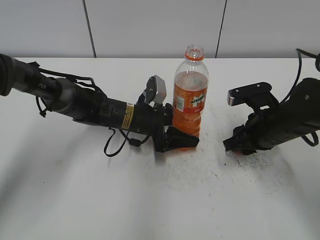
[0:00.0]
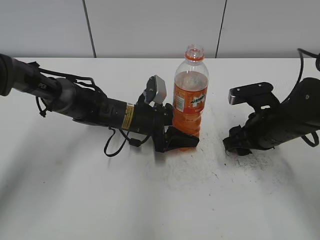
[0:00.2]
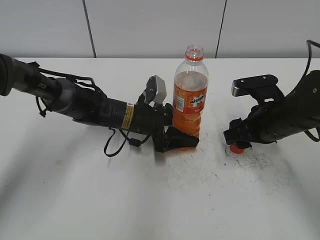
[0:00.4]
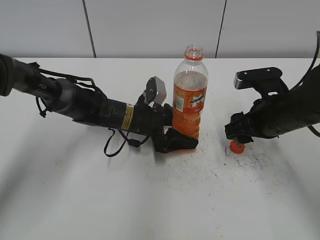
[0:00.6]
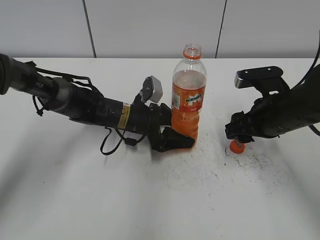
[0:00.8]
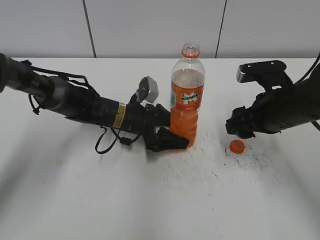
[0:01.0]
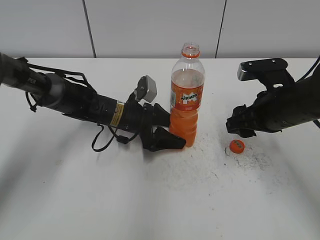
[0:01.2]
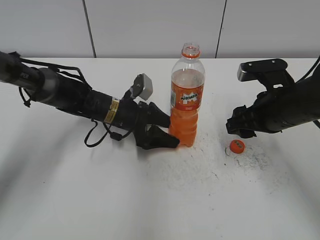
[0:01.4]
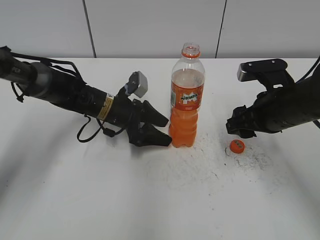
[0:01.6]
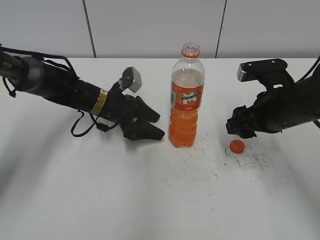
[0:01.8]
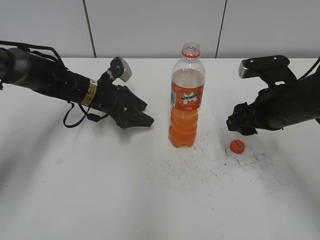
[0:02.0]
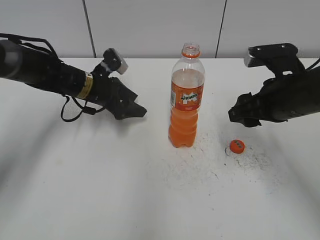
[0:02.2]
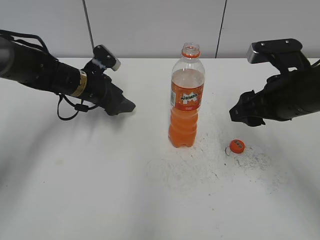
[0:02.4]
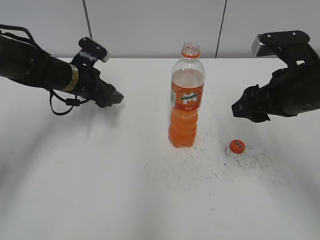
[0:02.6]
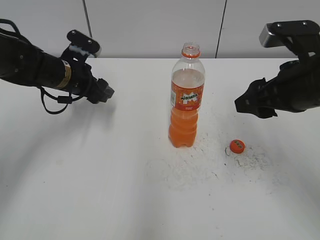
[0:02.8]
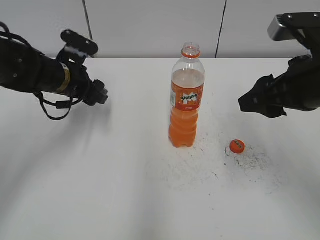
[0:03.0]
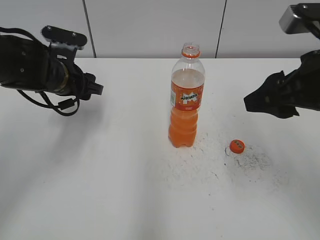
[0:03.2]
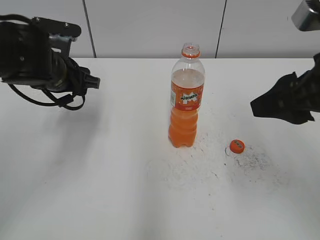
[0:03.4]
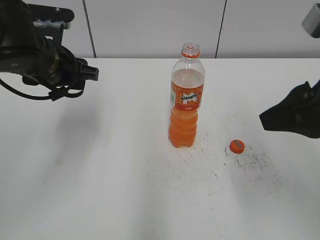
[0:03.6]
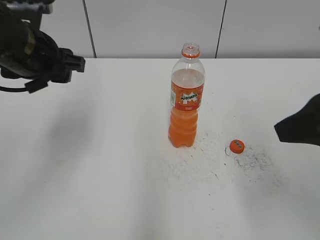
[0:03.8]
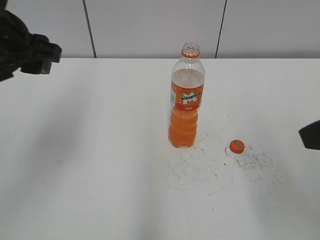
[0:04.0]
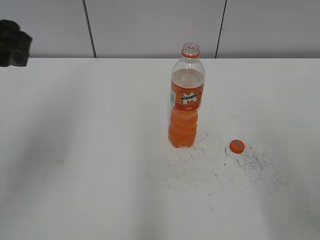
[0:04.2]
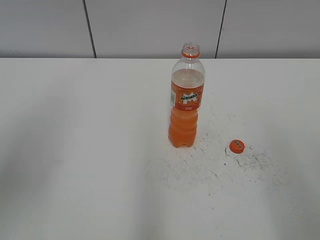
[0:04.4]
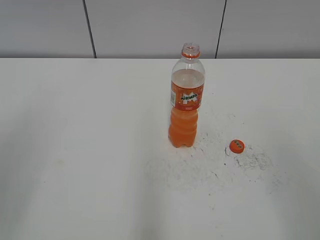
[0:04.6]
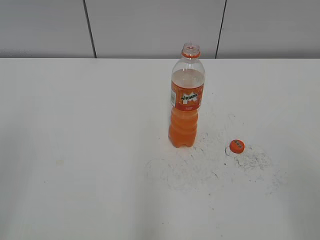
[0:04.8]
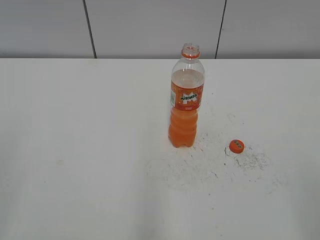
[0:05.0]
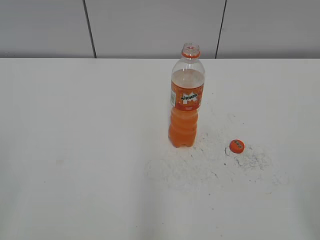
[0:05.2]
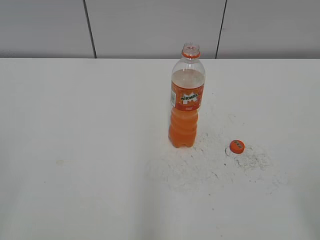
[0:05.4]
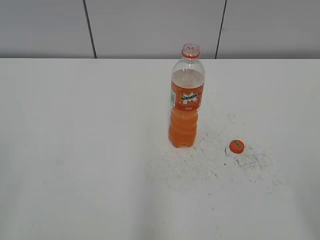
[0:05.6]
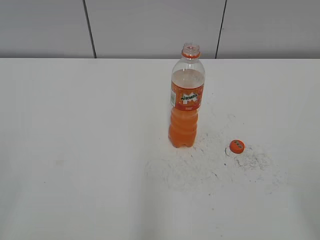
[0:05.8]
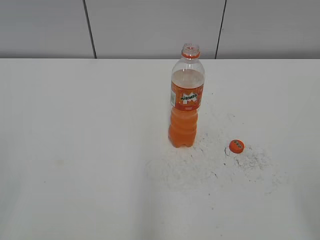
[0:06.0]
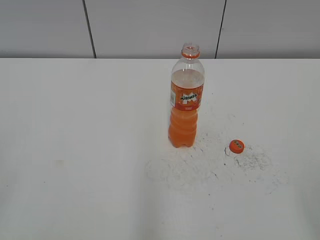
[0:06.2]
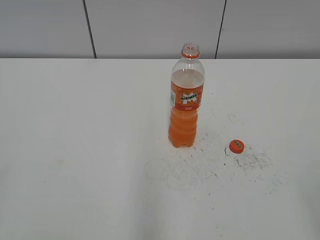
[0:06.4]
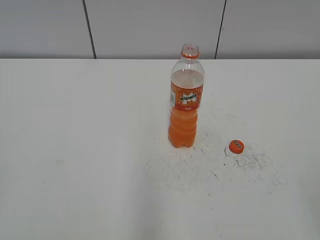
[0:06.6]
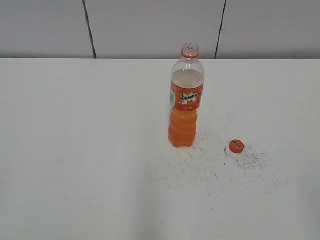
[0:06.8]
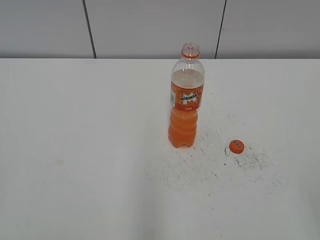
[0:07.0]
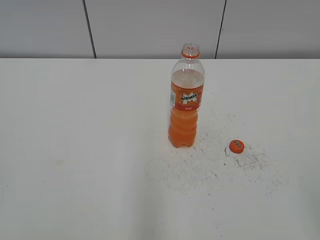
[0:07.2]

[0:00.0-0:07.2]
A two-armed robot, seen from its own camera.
Step, 0:00.0 to 0:01.8: Place the bottle cap on the table with the right hand.
0:00.0 to 0:01.4: The left gripper opens its fingers; the right gripper heads upward, covering some 5 cm, and opens up.
0:01.4 to 0:02.8: The left gripper shifts about 15 cm to the left and upward, and closes its fingers, while the right gripper moves upward, approximately 5 cm.
0:02.8 to 0:04.4: The left gripper travels backward and upward by roughly 30 cm. The right gripper shifts approximately 20 cm backward and upward.
0:04.4 to 0:05.8: The left gripper travels backward and to the left by about 20 cm.

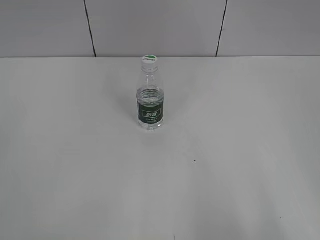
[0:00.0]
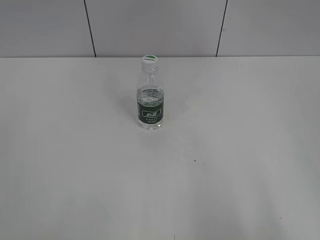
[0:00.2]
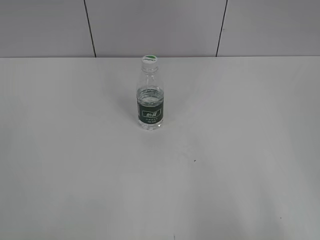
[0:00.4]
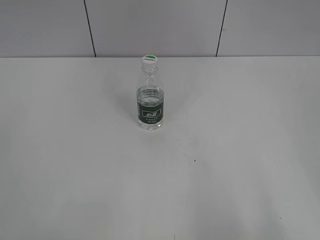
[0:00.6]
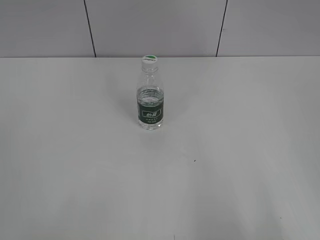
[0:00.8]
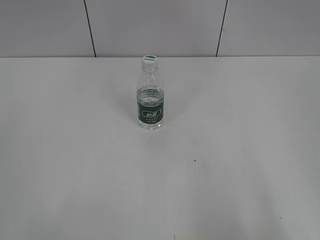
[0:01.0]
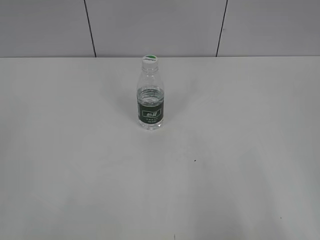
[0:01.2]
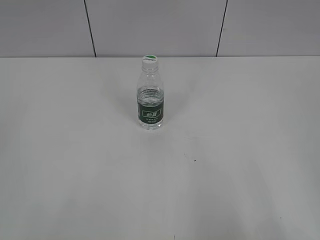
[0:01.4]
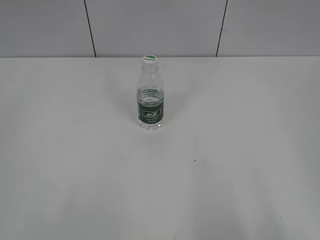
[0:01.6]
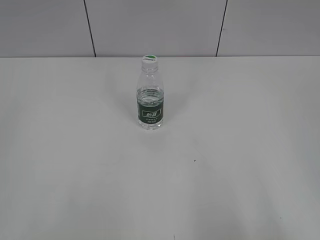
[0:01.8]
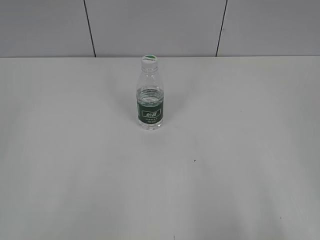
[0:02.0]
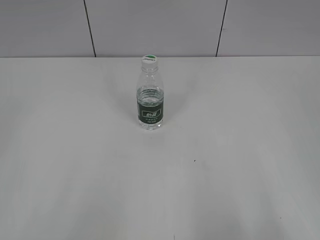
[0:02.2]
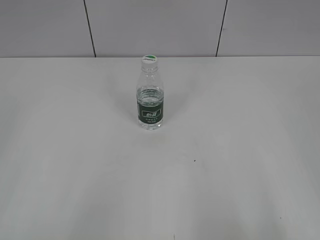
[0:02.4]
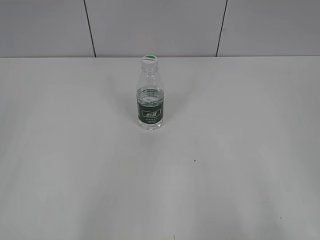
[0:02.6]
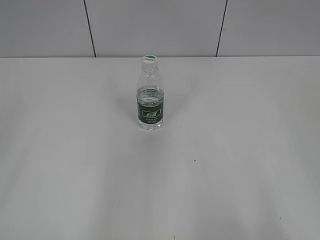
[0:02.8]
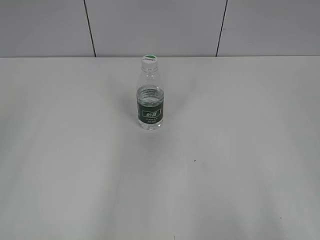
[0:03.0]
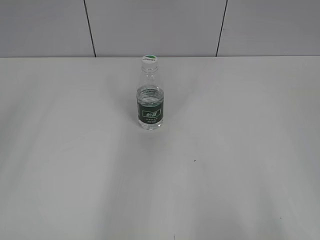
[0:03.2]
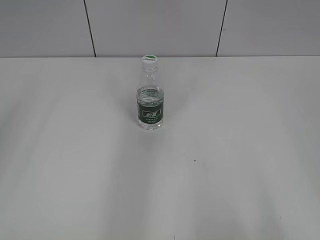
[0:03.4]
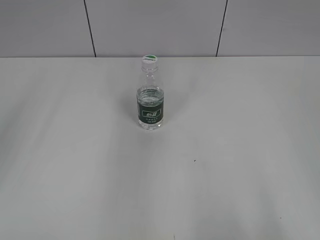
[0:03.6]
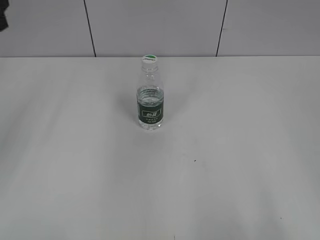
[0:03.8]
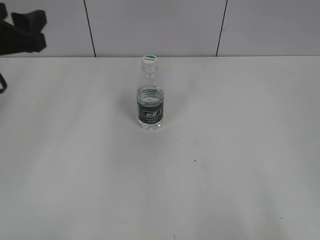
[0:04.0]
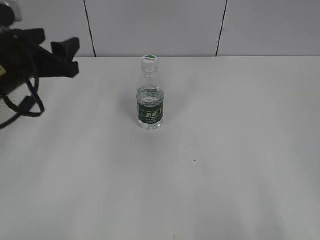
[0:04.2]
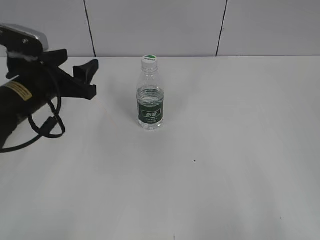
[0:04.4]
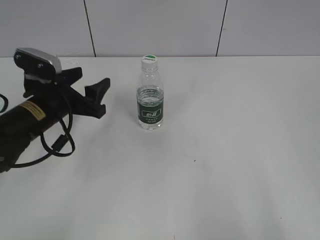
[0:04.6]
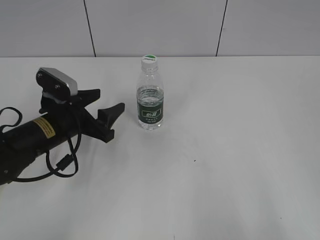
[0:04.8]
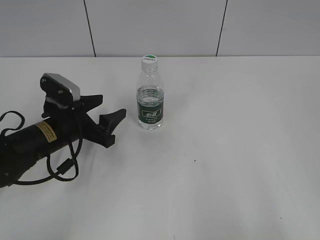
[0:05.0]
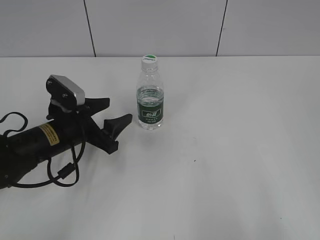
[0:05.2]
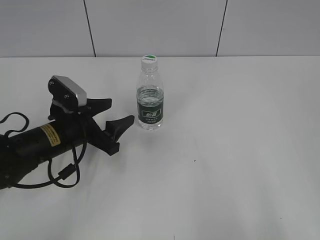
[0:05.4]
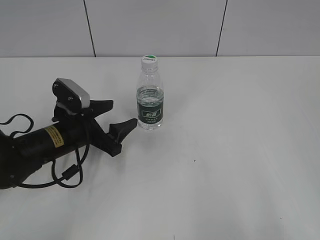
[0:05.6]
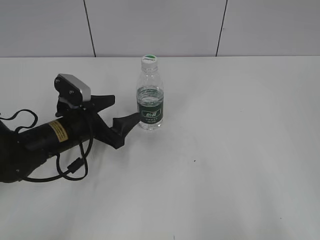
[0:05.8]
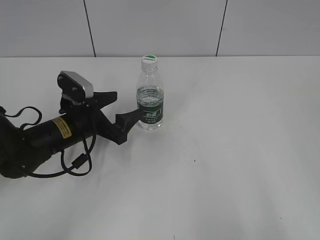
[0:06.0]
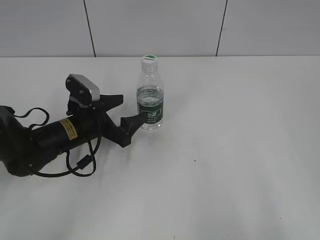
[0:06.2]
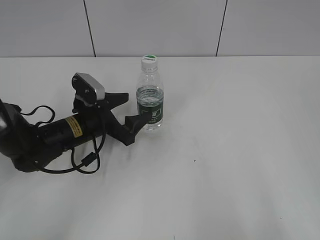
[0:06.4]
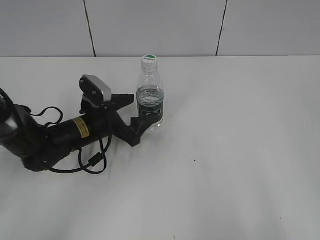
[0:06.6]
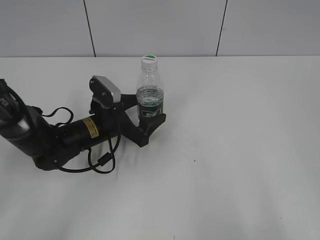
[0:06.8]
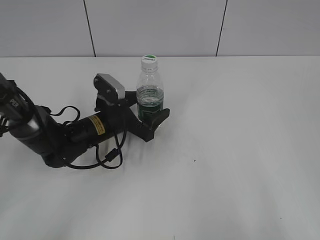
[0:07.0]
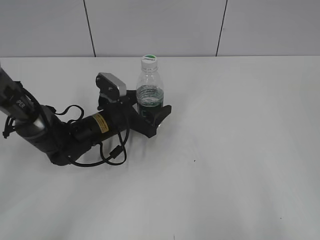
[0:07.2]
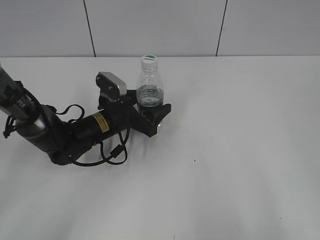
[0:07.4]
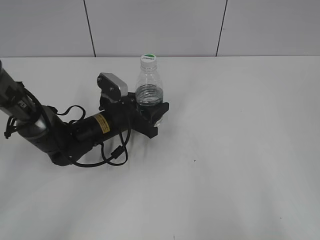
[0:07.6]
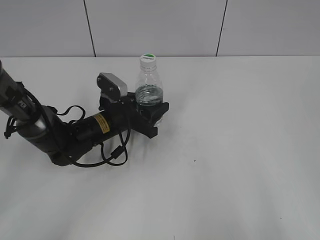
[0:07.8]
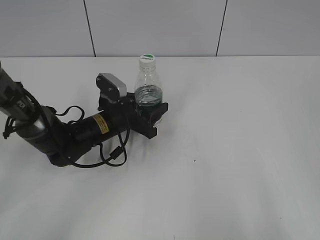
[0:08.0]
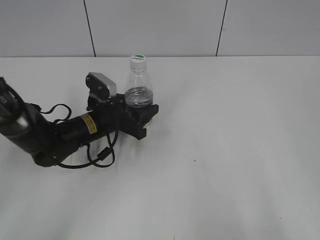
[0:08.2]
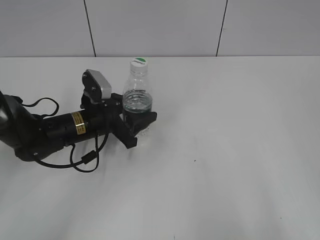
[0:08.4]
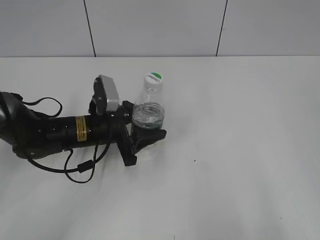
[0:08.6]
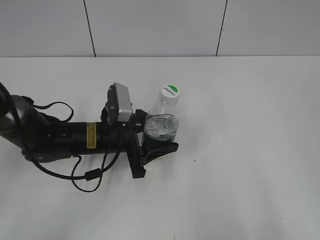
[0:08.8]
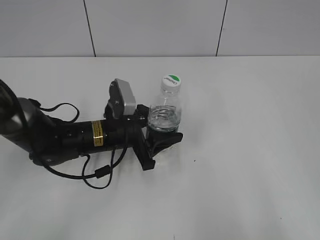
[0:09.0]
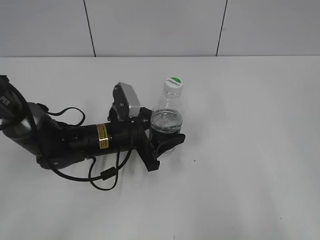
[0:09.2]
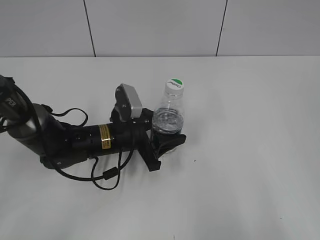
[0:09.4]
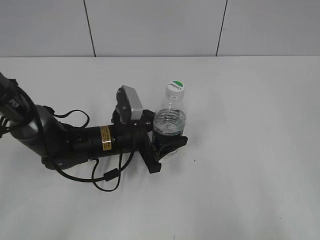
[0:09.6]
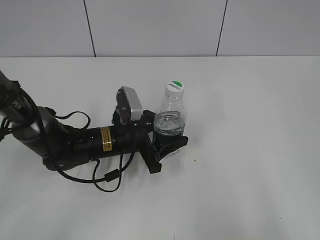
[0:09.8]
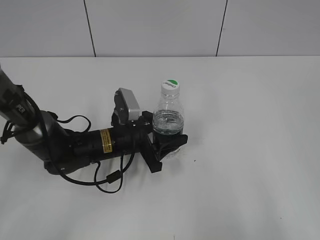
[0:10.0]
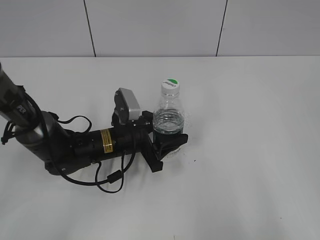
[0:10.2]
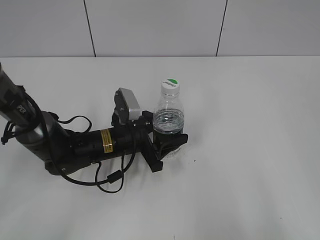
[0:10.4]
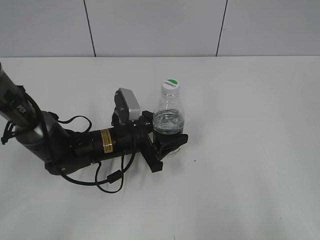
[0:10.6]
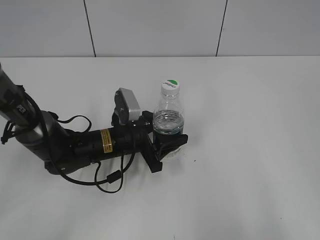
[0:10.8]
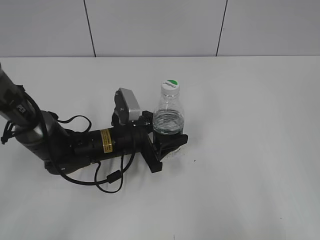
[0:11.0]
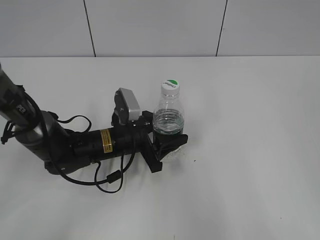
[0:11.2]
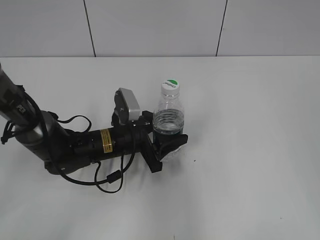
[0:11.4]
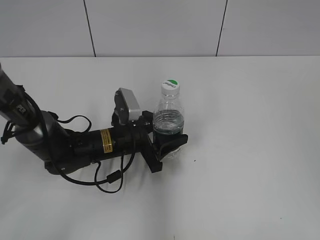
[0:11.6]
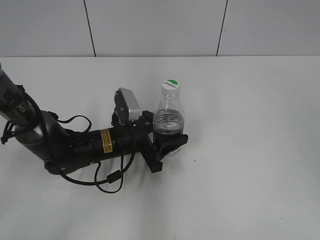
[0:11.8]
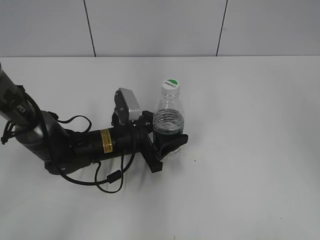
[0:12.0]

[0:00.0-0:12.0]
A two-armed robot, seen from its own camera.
Step, 0:00.0 to 0:07.8: Grasp the bottle and move it to the center of the table with the left gripper.
Step, 0:08.0 to 0:11.6: Lift the bottle and move it to the center of the table with the left gripper.
0:01.6 to 0:03.0: The left gripper heads forward and upward, covering about 10 cm, and opens its fingers.
0:03.0 to 0:04.4: The left gripper heads forward, downward and to the right, covering approximately 30 cm.
0:04.4 to 0:06.0: The left gripper heads downward, covering roughly 10 cm.
0:06.0 to 0:07.6: The left gripper is displaced to the right by approximately 5 cm, and closes up.
0:07.6 to 0:09.0: The left gripper moves backward, about 5 cm.
0:09.0 to 0:10.4: The grippers move only a little.
0:10.4 to 0:12.0: The right gripper is displaced forward and upward by approximately 25 cm.

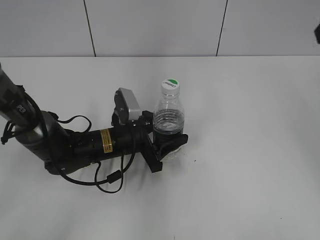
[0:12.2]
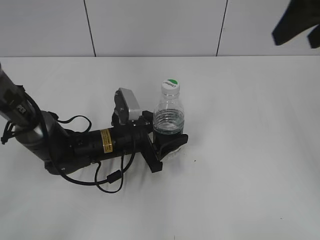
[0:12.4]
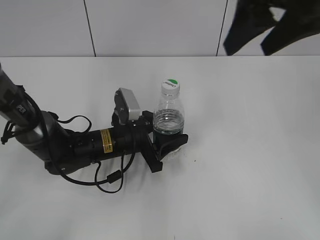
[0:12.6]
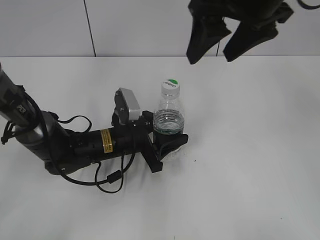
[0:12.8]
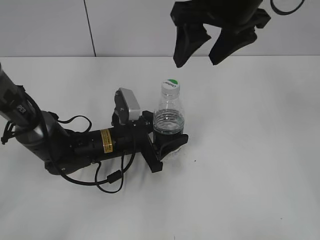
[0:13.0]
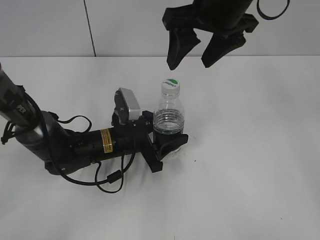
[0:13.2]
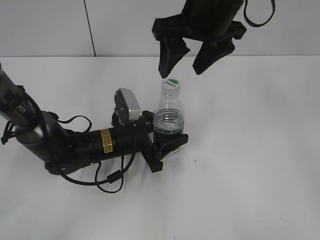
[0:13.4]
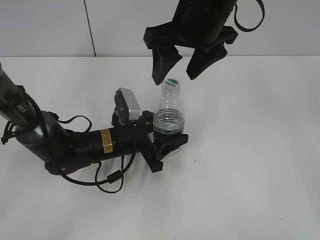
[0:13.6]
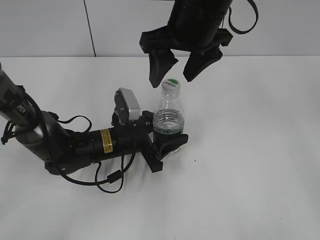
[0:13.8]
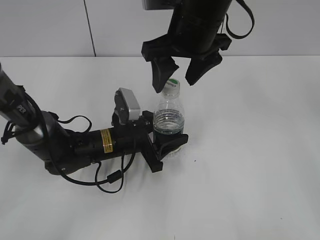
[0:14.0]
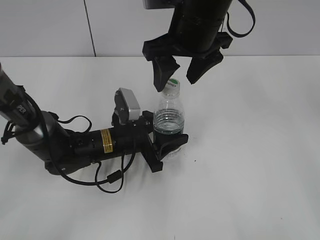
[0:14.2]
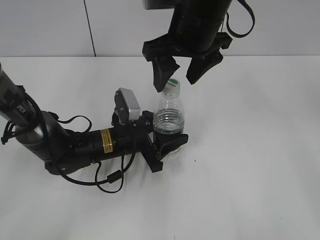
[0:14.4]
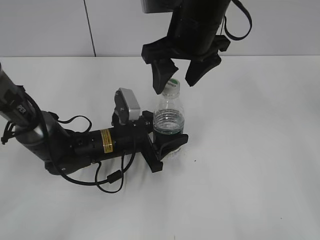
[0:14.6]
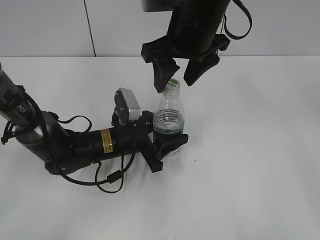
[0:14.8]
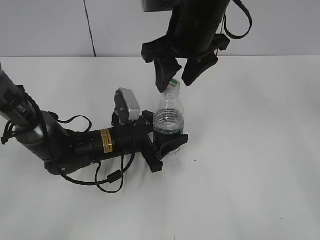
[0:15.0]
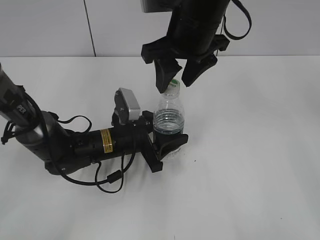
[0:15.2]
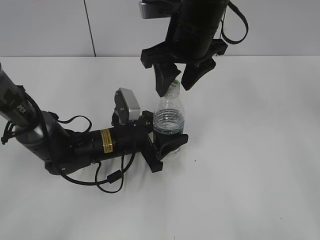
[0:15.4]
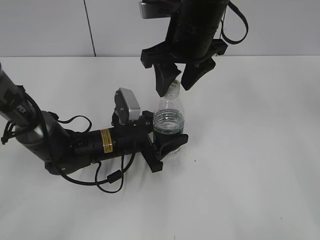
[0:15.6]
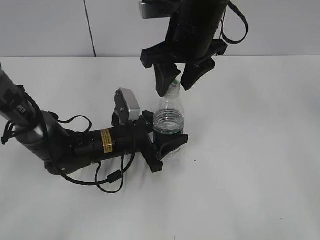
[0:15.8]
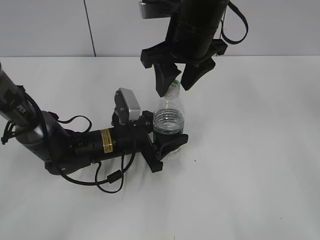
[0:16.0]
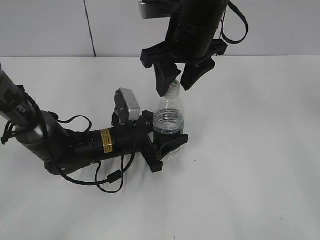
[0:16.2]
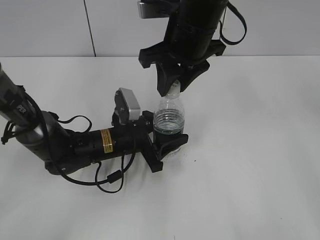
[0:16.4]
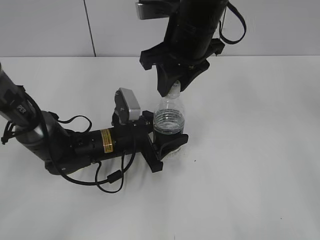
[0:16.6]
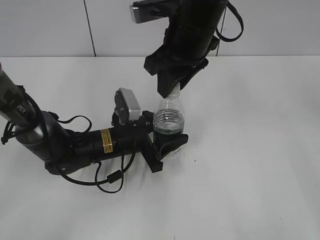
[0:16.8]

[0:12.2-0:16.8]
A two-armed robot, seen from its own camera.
0:12.2 to 0:13.8: The right gripper shifts approximately 20 cm to the left and downward.
0:13.8 to 0:15.2: The right gripper closes up.
0:15.2 to 0:16.8: The right gripper closes.
